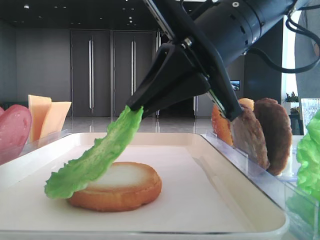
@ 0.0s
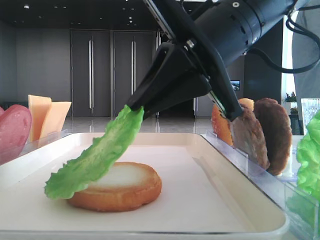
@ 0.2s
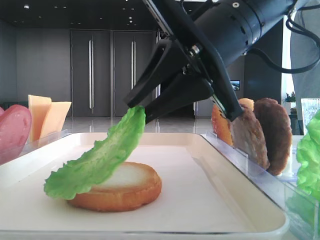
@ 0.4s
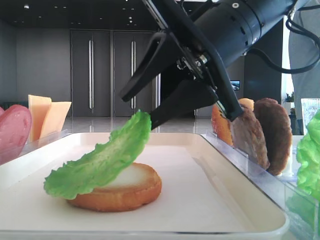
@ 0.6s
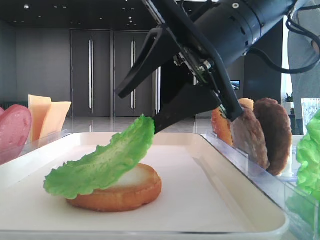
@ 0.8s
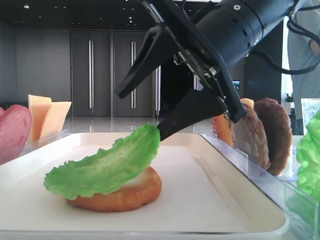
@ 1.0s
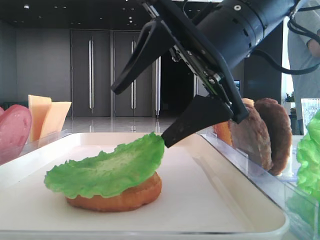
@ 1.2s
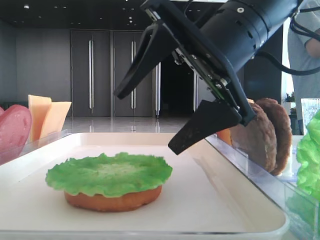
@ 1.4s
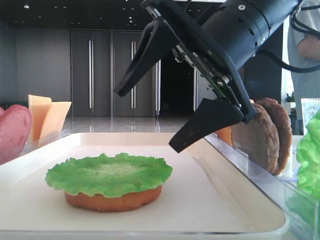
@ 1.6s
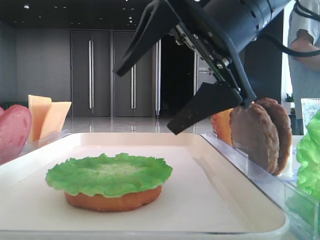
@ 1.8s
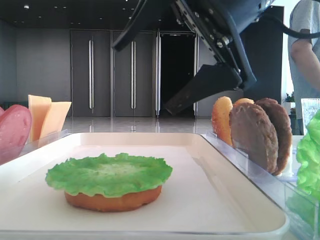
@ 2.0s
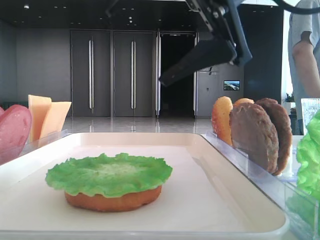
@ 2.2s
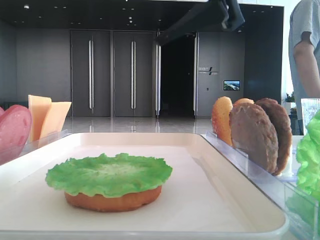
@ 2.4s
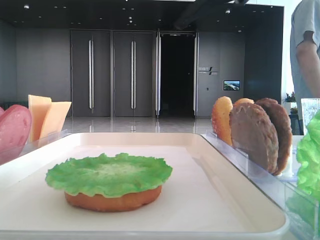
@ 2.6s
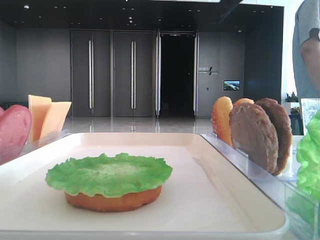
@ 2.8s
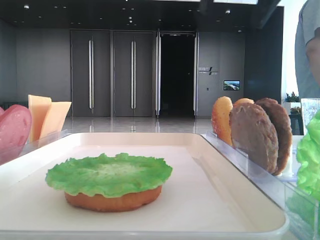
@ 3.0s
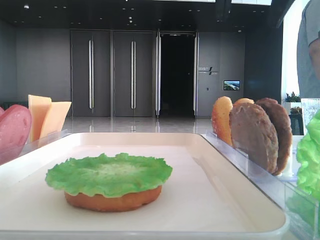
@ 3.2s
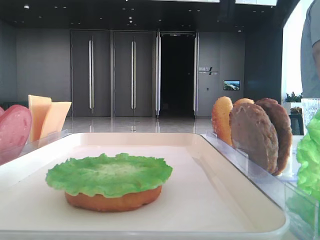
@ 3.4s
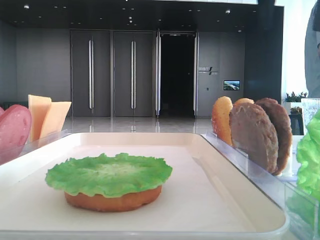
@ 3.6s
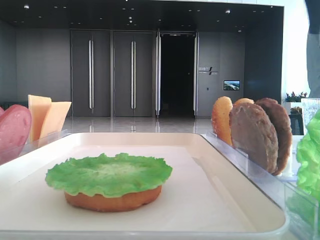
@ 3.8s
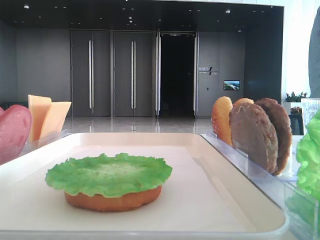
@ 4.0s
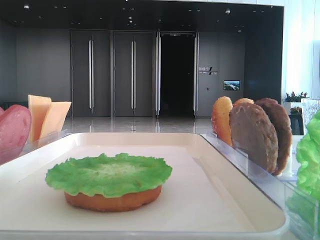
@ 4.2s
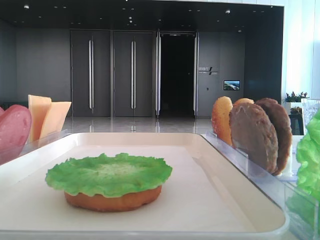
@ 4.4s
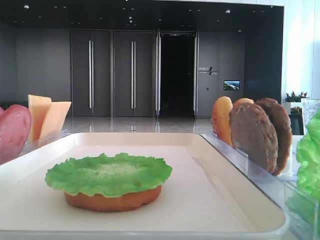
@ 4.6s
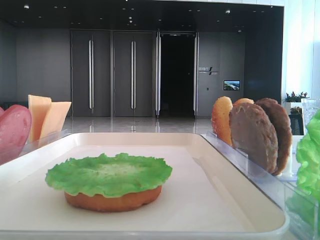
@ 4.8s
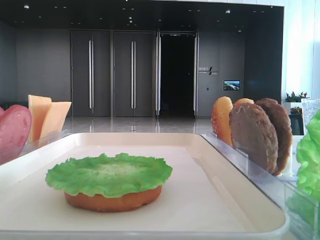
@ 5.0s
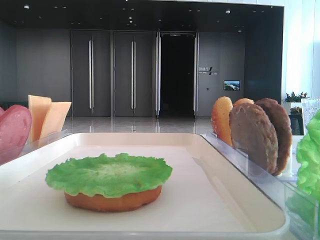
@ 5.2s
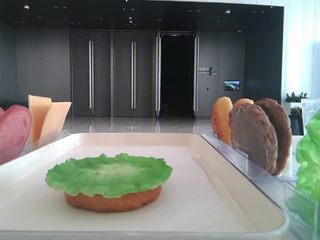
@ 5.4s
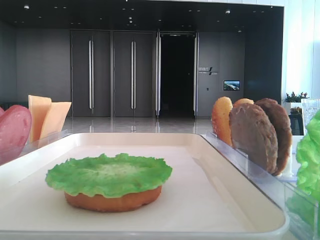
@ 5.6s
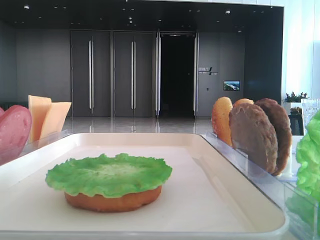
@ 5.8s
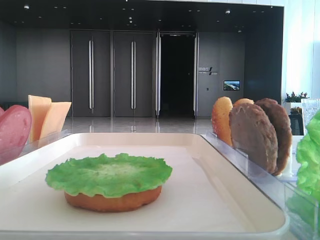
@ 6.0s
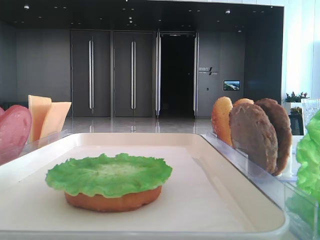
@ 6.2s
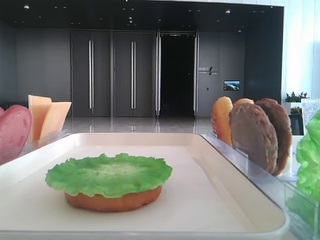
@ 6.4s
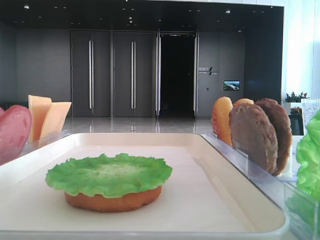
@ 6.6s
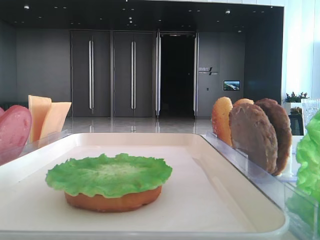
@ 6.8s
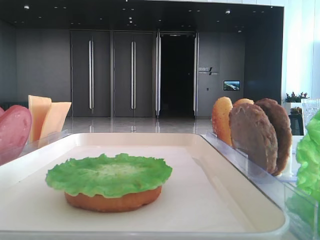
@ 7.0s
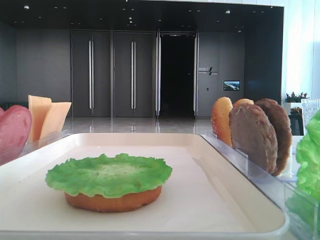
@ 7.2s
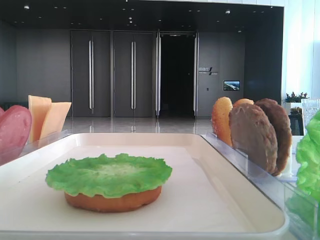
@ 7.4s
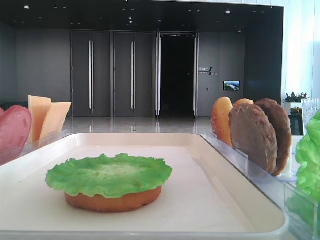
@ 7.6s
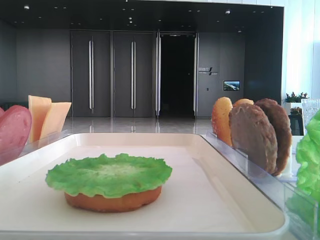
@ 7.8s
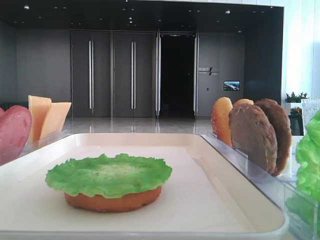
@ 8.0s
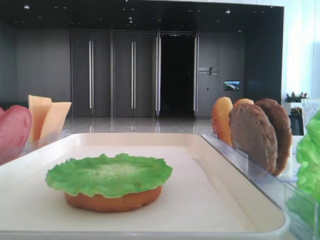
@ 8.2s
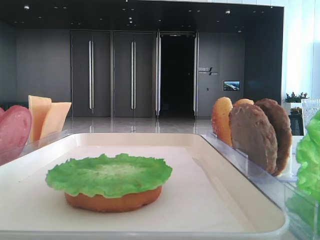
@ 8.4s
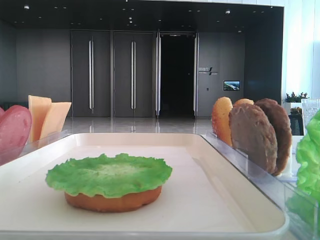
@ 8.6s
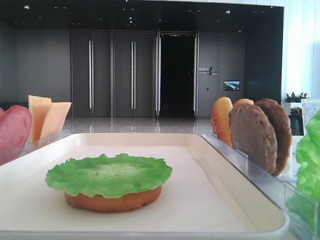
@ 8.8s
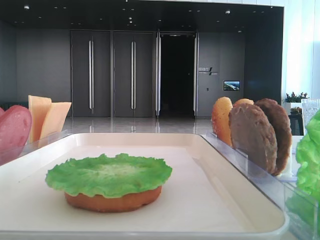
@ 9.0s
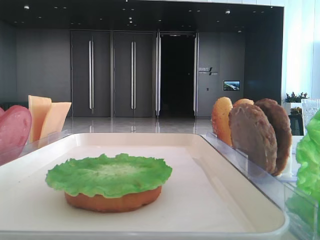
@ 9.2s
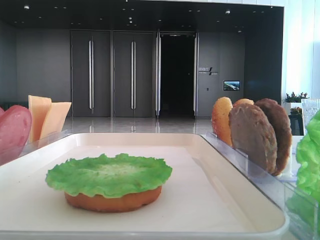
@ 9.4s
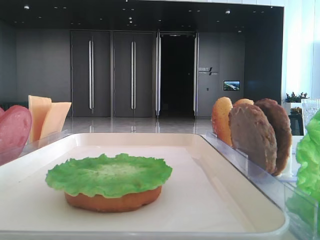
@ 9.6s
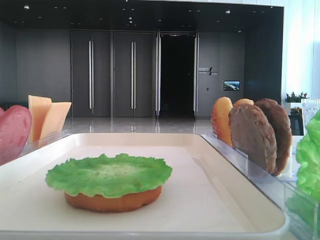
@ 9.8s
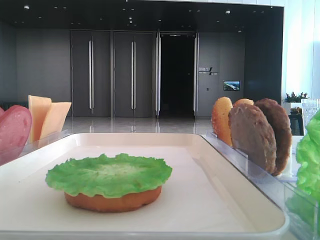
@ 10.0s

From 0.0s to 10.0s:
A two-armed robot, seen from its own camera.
From 0.0s to 1.4s: The right gripper opens up.
From 1.4s to 2.8s: The right gripper travels upward by some 15 cm.
From 2.8s to 4.2s: The right gripper is displaced to the right by about 25 cm.
From 8.6s to 10.0s: The two grippers keep their place.

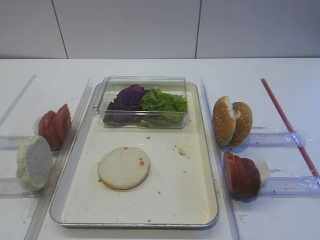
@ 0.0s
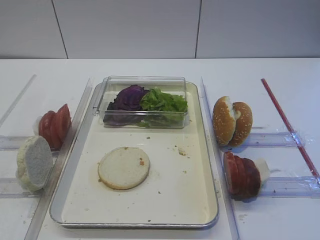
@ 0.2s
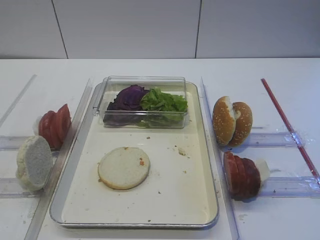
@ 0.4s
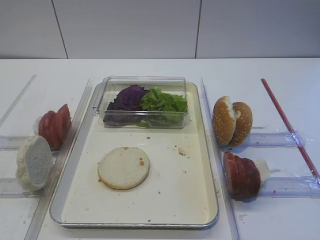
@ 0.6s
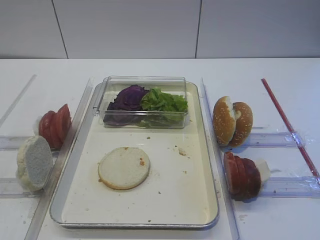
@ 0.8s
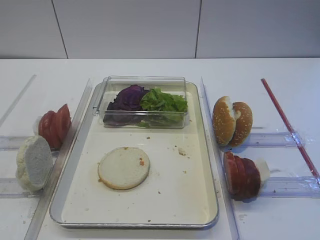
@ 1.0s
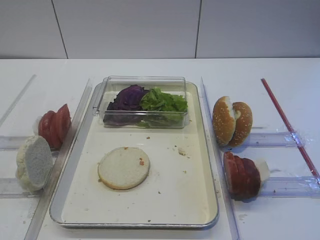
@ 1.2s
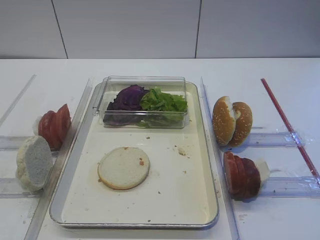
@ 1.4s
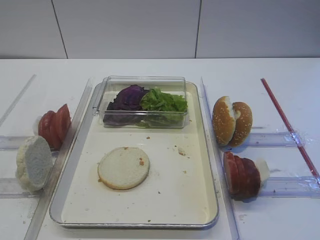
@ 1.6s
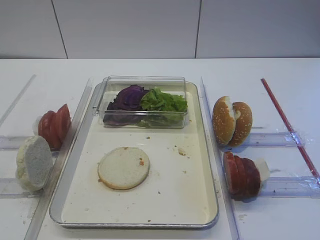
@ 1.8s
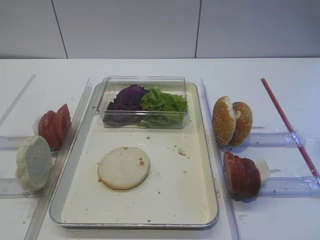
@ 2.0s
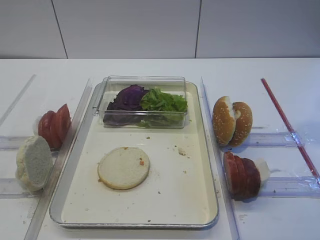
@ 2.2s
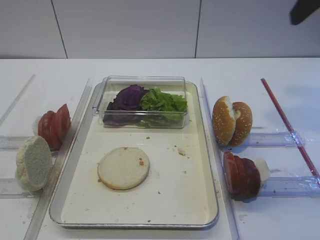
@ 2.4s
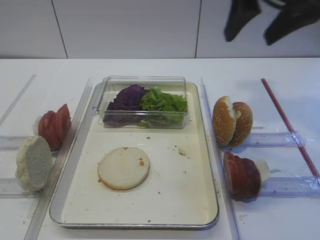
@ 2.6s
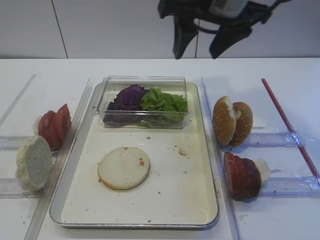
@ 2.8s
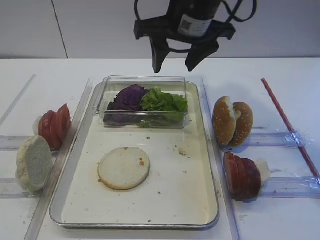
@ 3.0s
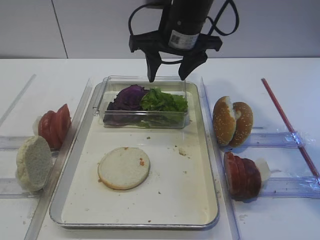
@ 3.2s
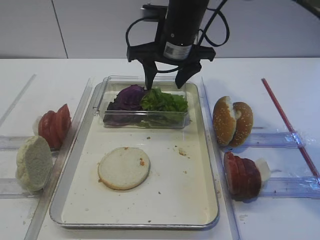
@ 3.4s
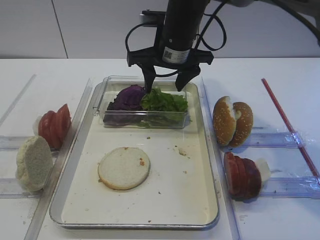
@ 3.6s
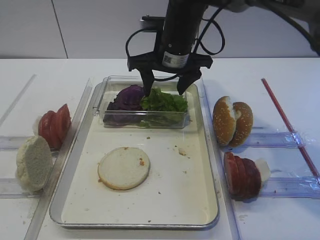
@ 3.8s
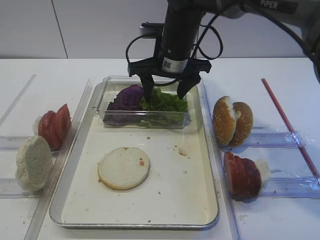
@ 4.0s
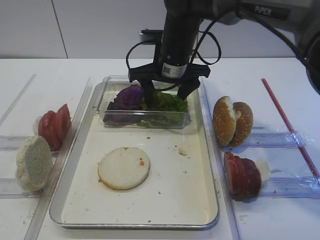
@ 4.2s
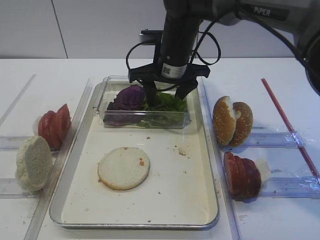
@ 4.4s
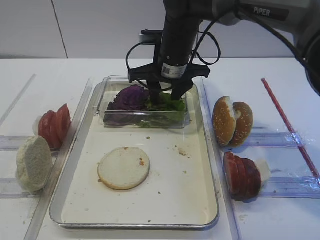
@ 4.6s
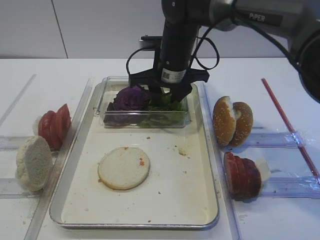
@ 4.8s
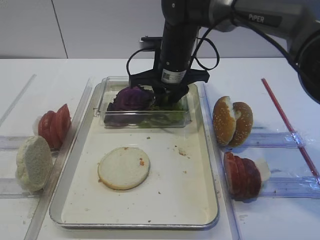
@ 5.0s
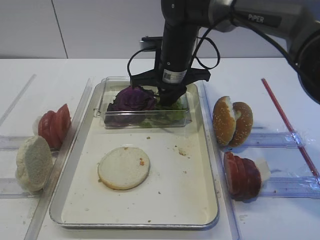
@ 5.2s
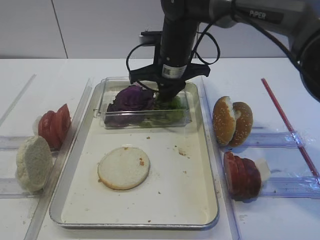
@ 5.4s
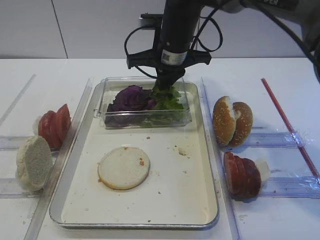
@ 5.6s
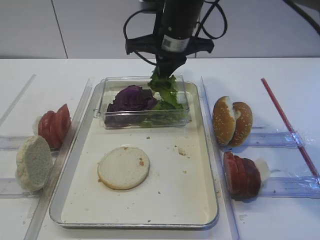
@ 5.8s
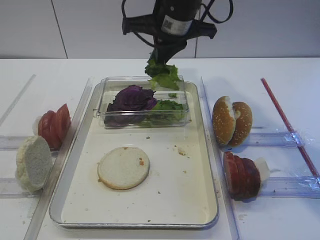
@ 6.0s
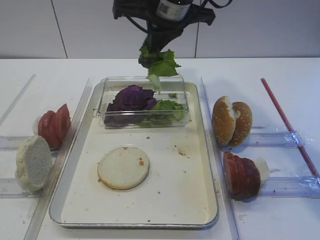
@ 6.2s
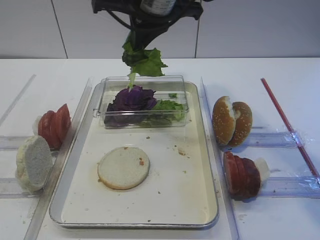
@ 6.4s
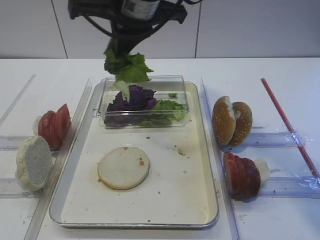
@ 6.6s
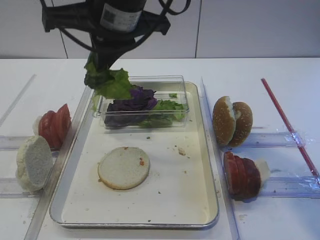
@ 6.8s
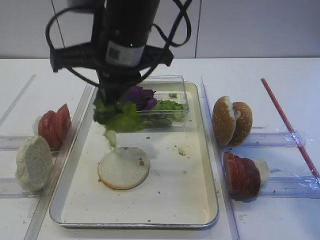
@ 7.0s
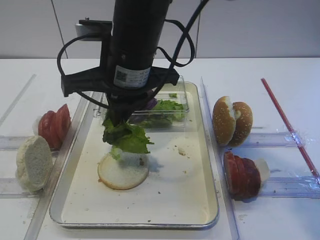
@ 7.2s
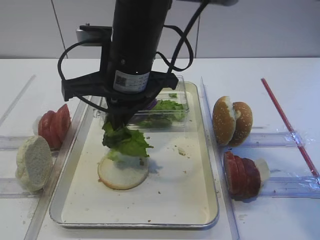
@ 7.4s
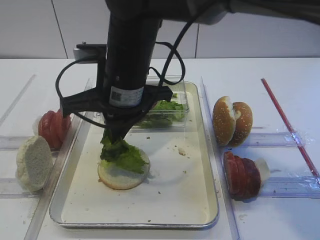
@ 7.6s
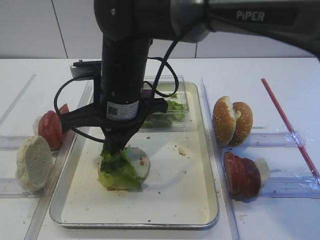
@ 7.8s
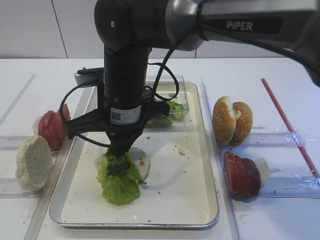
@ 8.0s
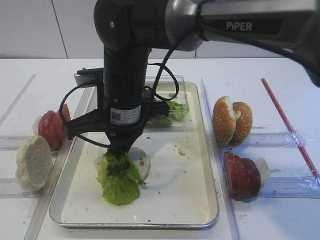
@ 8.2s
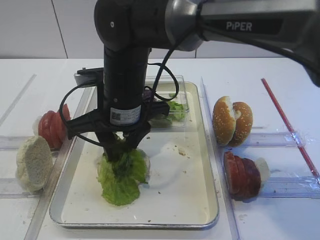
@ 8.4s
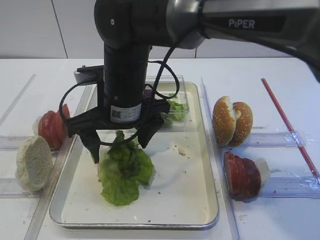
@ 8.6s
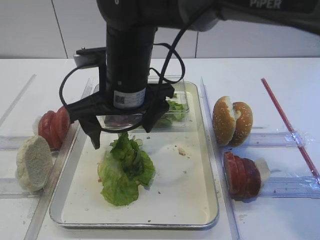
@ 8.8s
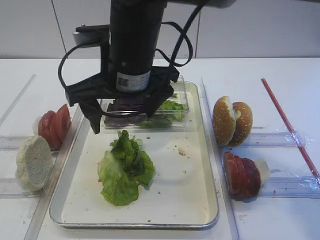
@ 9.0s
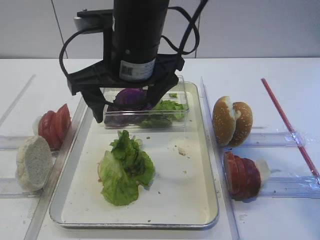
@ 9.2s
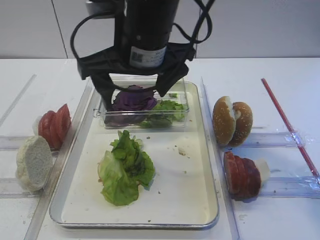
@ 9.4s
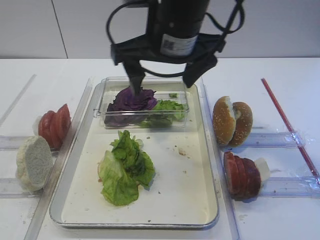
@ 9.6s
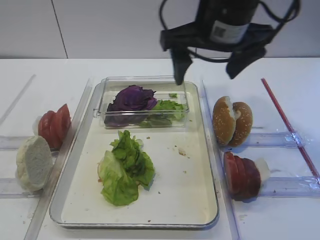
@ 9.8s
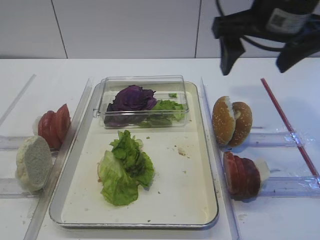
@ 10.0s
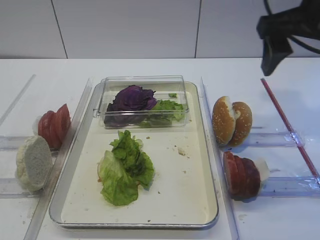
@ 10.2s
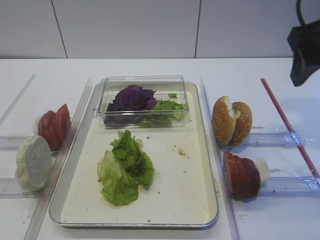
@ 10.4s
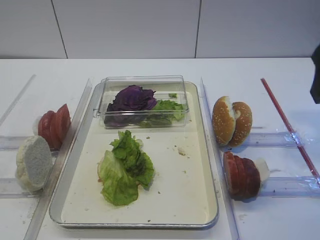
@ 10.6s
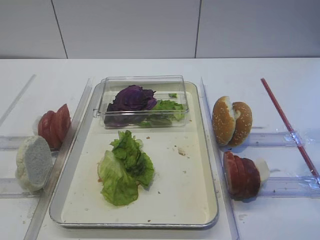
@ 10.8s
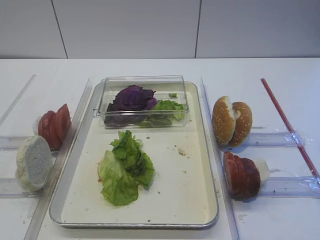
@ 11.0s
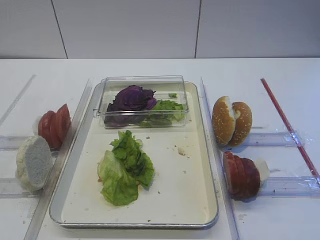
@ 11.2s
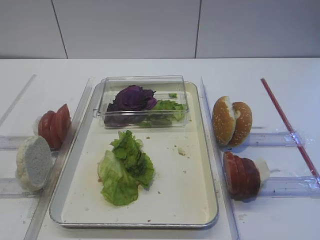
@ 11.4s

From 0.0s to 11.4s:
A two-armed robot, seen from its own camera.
Step, from 0.0s to 6.0s: Pick up the lettuce leaf with the right gripper.
Step, from 6.2s to 9.2s: Place the lettuce leaf on the bread slice with the right gripper.
From 1.4s to 2.8s: The right gripper shifts roughly 35 cm forward and to the left.
From 2.8s to 4.2s: The right gripper heads downward, forward and to the left, covering about 15 cm.
From 4.2s to 5.6s: The right gripper closes up.
From 5.6s to 7.2s: The right gripper shifts approximately 15 cm backward and to the left.
From 7.2s to 8.6s: The right gripper moves downward, approximately 5 cm, and opens.
From 8.6s to 10.0s: The right gripper shifts approximately 25 cm to the right and upward.
From 10.0s to 11.4s: The right gripper travels backward and to the right by roughly 30 cm.

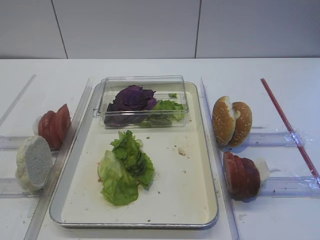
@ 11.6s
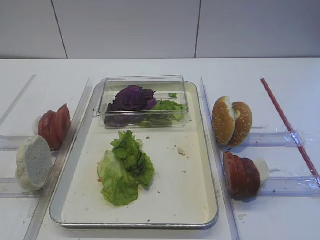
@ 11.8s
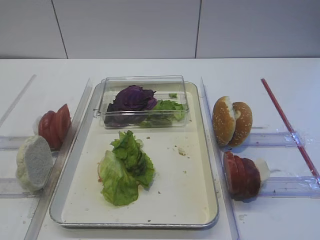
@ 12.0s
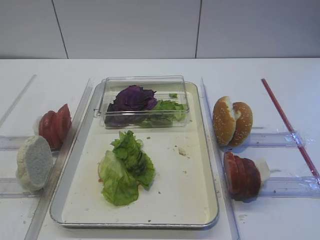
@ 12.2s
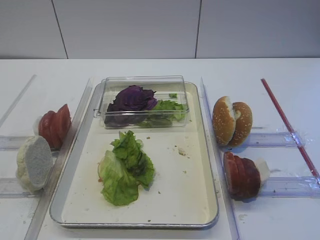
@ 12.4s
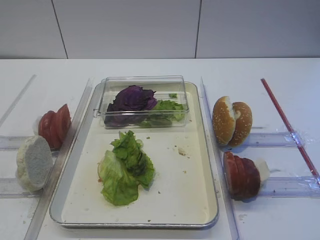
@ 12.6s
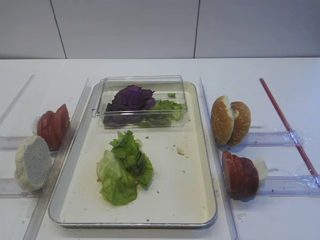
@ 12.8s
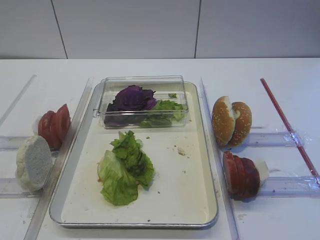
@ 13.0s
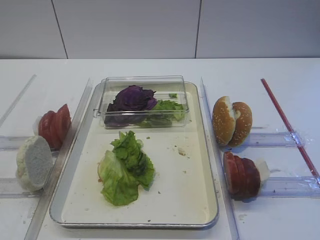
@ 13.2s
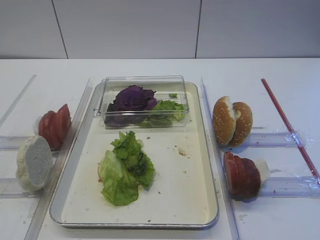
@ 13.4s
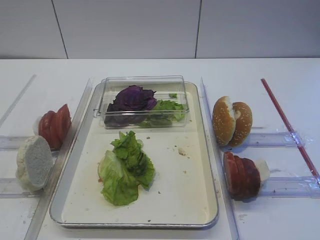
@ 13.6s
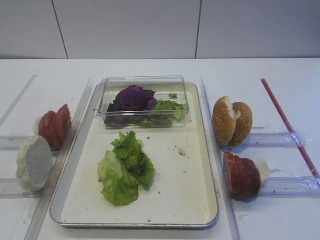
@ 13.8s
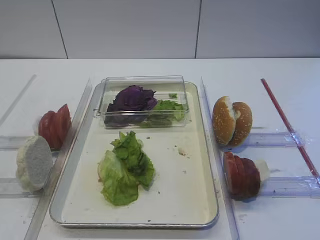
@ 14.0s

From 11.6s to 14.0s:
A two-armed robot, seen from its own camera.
From 11.6s to 14.0s: There are only small adjustments of the grippers.
